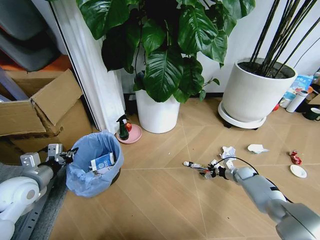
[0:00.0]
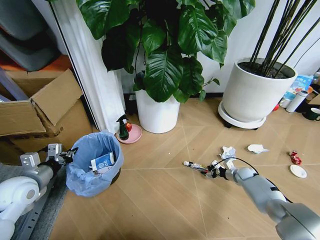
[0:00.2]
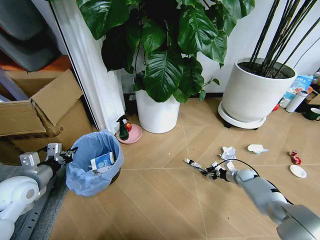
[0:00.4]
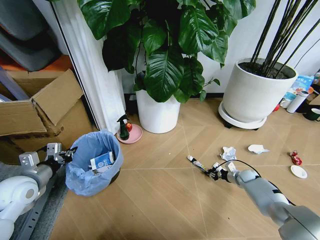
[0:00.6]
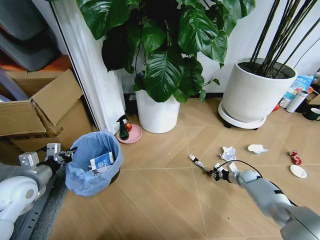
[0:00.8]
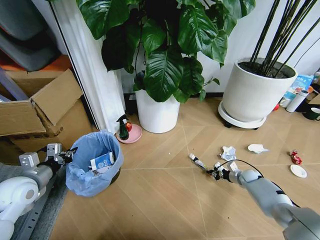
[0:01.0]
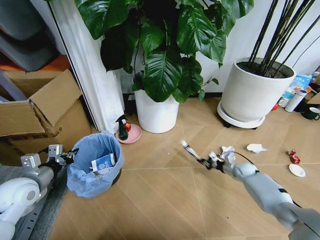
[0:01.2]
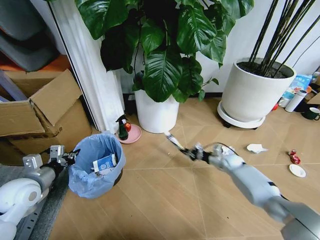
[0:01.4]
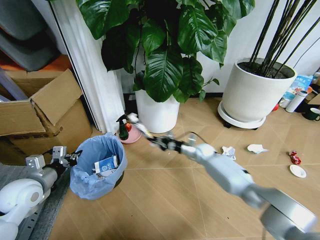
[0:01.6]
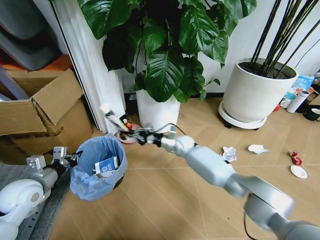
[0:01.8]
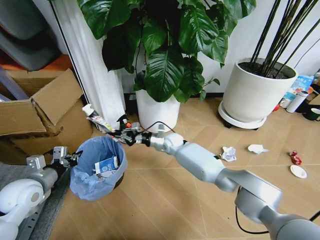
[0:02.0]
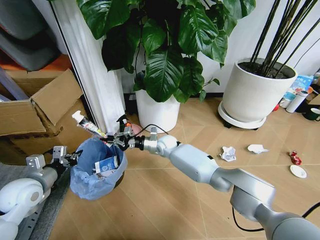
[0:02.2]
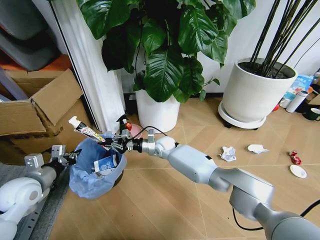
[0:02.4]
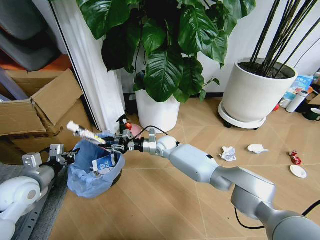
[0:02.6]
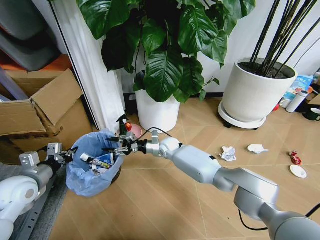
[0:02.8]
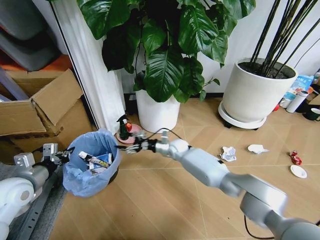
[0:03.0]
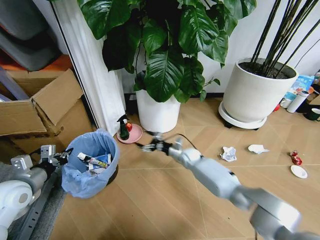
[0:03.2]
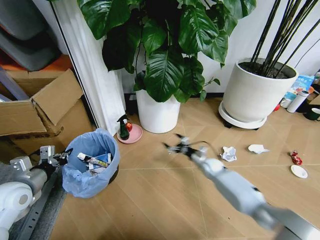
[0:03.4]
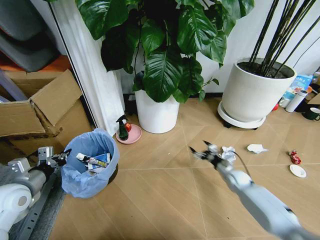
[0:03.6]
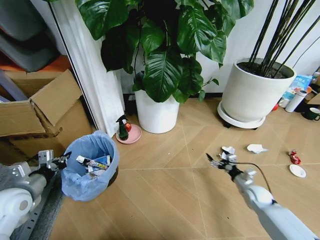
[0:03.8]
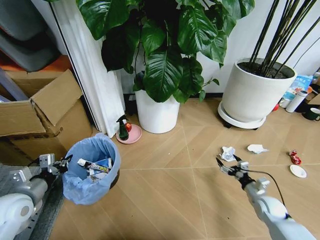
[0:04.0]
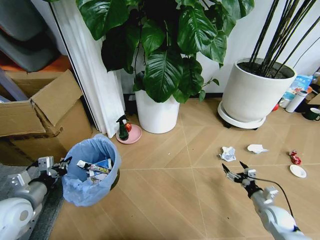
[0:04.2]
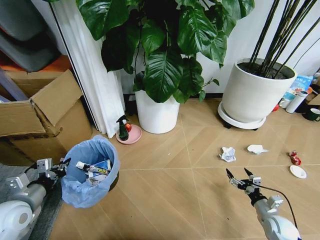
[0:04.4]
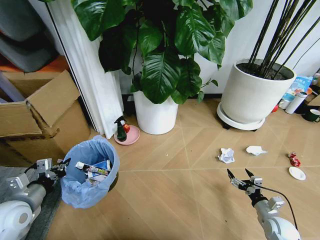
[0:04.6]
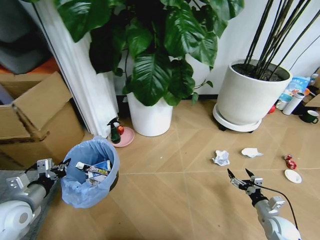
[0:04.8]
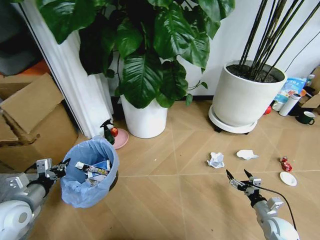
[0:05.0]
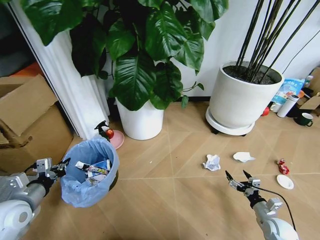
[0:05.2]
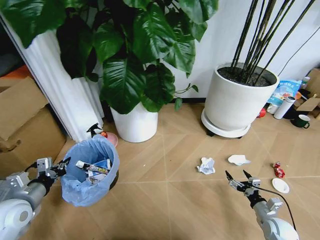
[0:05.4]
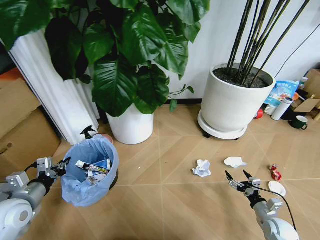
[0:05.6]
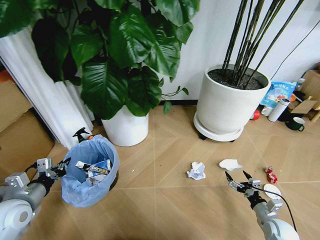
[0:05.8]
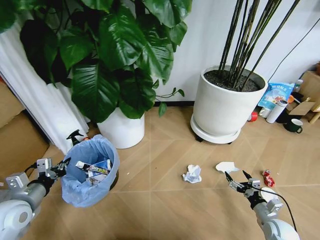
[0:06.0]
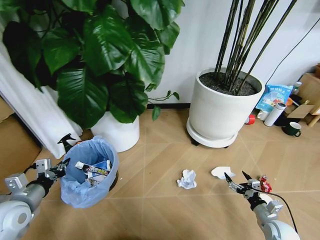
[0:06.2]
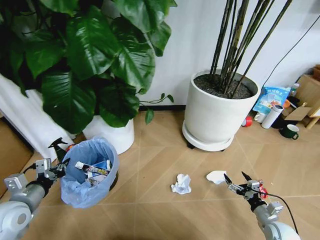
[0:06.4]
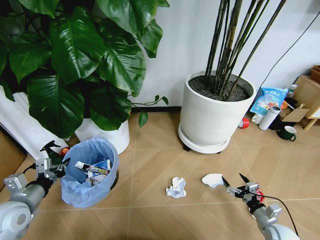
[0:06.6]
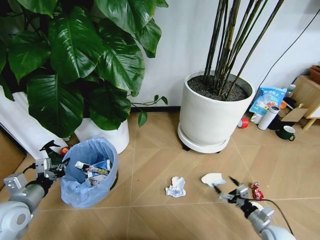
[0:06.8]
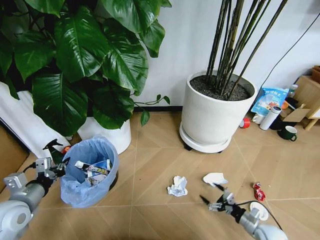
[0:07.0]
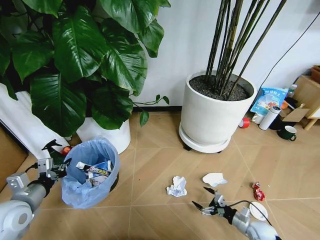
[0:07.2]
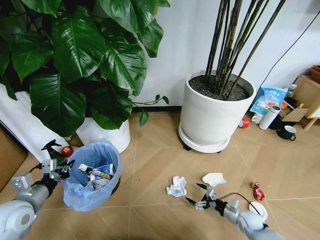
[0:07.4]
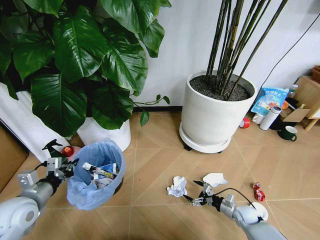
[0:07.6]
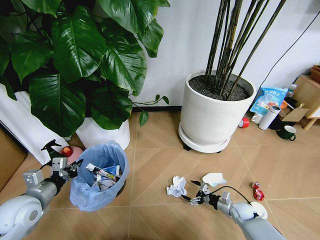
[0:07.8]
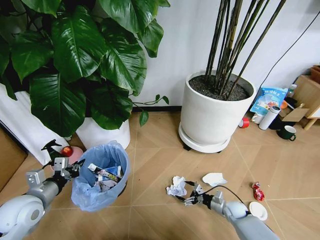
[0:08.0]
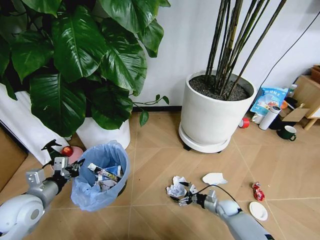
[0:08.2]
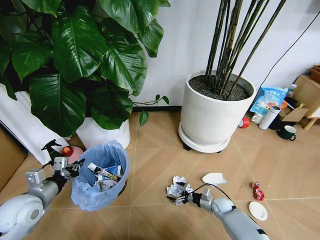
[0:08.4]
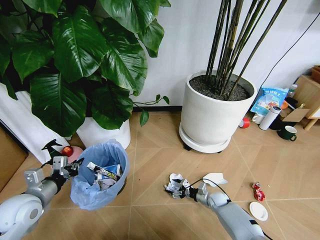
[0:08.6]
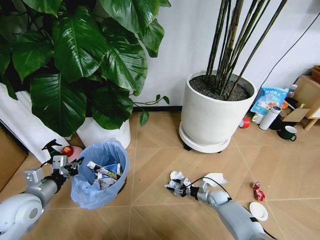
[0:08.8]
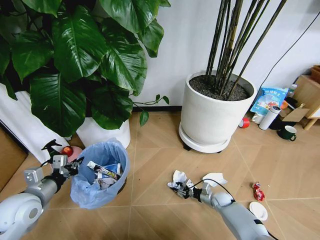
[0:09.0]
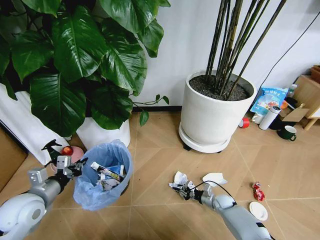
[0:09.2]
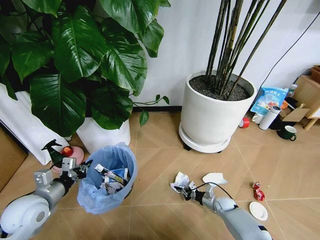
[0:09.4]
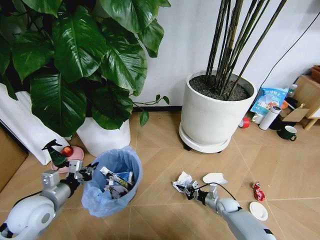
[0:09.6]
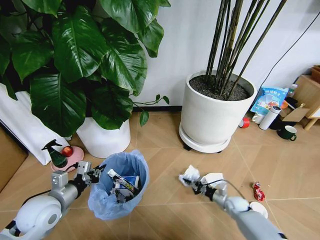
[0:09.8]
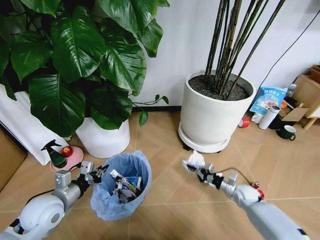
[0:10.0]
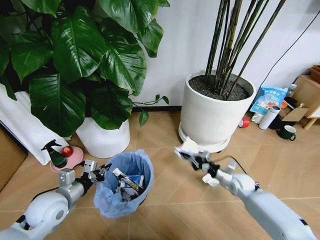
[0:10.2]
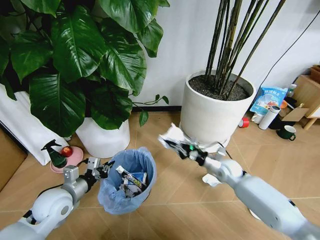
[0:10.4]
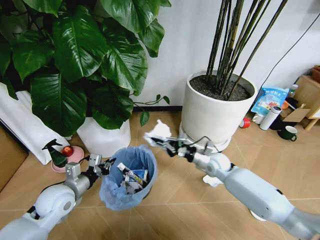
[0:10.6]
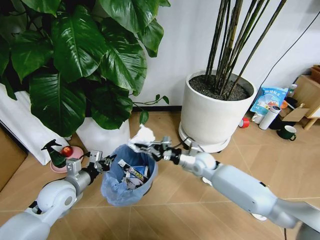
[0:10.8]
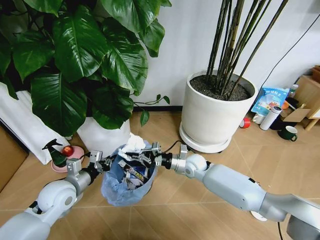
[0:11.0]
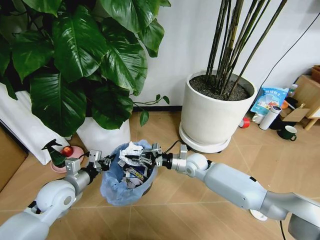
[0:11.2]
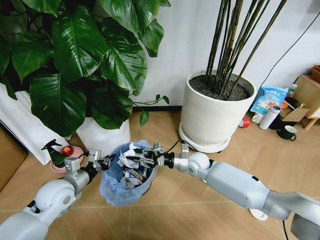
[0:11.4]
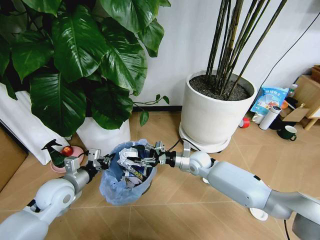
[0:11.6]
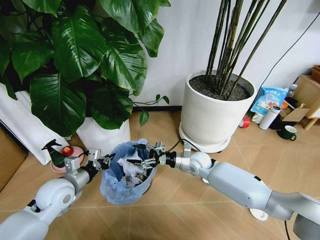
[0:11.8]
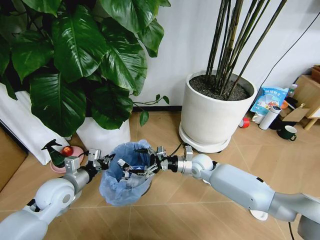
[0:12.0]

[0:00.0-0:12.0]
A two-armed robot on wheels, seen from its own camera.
Task of the whole recording: Pick up the trash bin and place the garbage on the floor into it.
0:00.0 to 0:01.6: The right gripper moves to the left and upward, some 25 cm, and closes its fingers.
0:01.6 to 0:03.0: The right gripper shifts about 15 cm to the left, and opens.
0:03.0 to 0:04.4: The left gripper heads backward, covering about 5 cm, while the right gripper travels to the right and backward by roughly 50 cm.
0:06.0 to 0:07.6: The right gripper shifts approximately 10 cm forward, to the left and downward.
0:07.6 to 0:09.0: The right gripper shifts roughly 10 cm forward and to the left, and closes.
0:09.0 to 0:10.4: The right gripper goes roughly 20 cm upward, and closes its fingers. The left gripper moves to the right, some 5 cm.
0:10.4 to 0:12.0: The right gripper is displaced to the left by about 10 cm, and opens up.

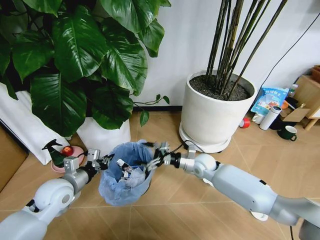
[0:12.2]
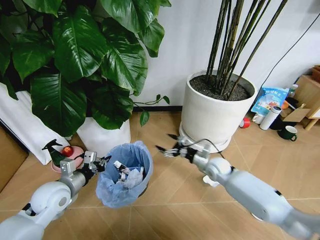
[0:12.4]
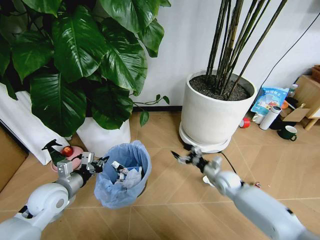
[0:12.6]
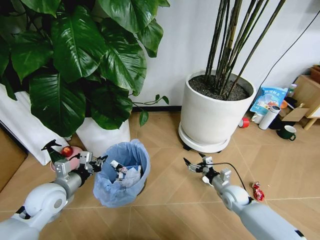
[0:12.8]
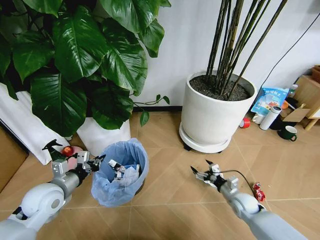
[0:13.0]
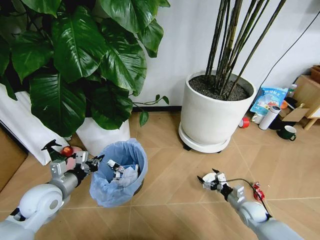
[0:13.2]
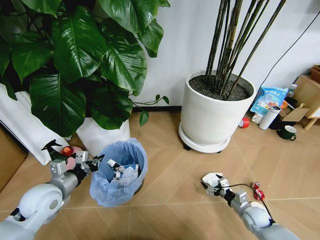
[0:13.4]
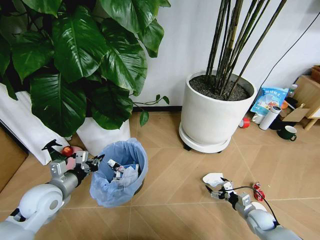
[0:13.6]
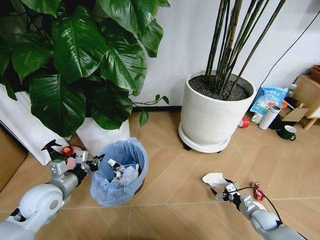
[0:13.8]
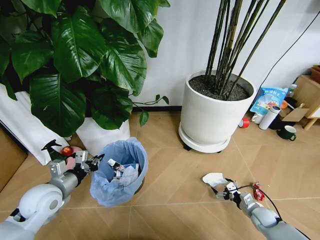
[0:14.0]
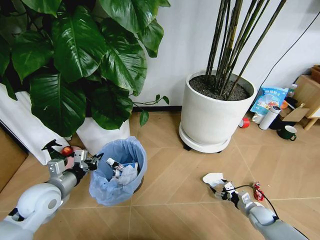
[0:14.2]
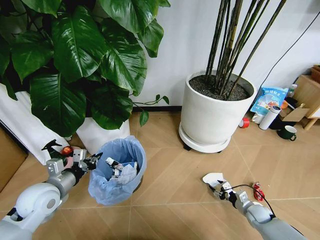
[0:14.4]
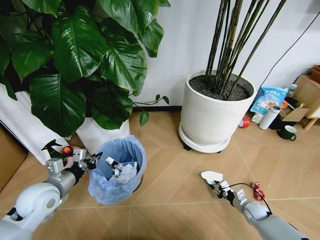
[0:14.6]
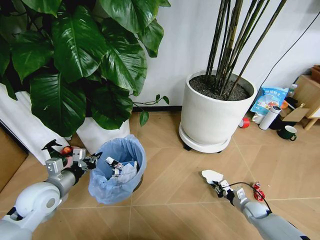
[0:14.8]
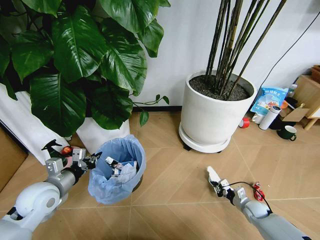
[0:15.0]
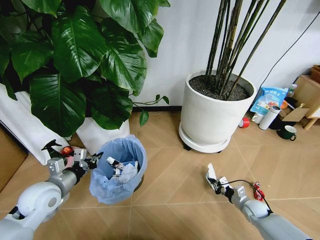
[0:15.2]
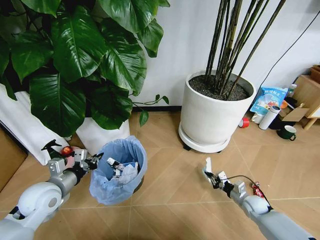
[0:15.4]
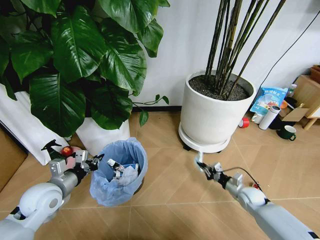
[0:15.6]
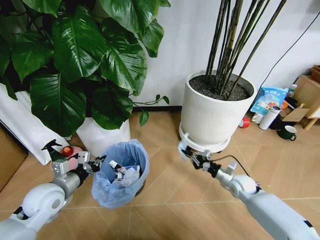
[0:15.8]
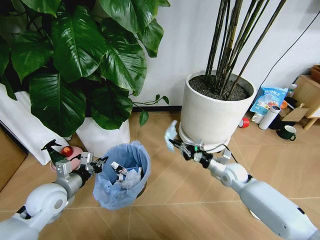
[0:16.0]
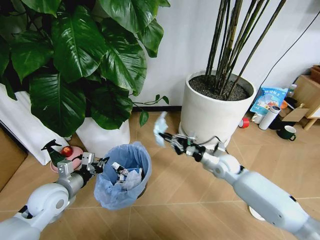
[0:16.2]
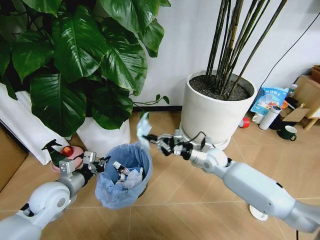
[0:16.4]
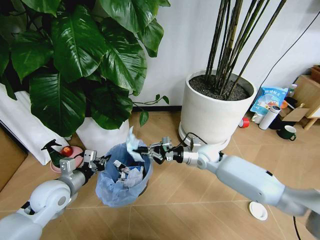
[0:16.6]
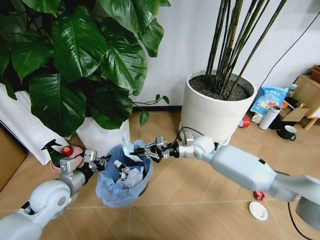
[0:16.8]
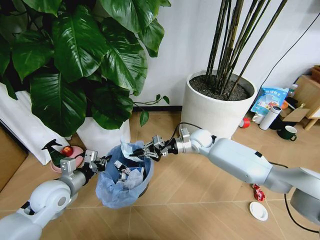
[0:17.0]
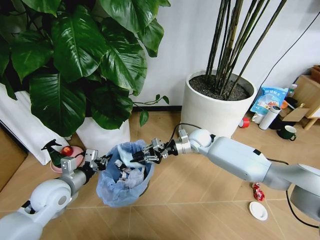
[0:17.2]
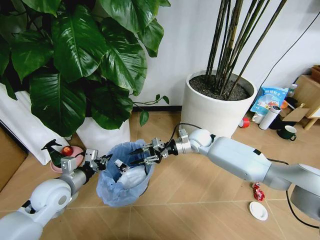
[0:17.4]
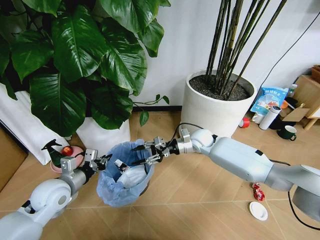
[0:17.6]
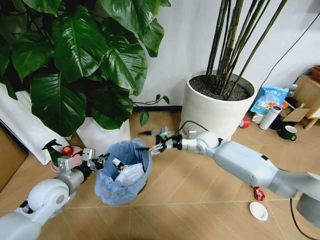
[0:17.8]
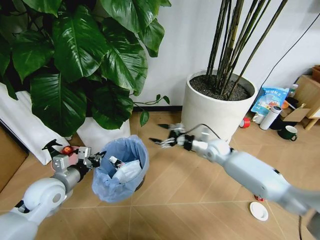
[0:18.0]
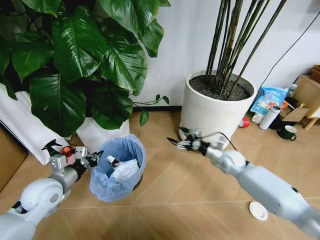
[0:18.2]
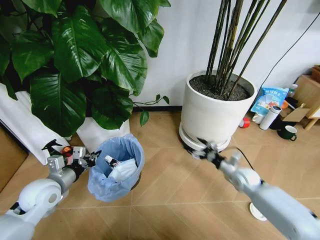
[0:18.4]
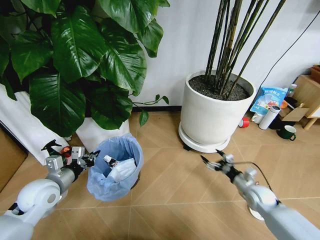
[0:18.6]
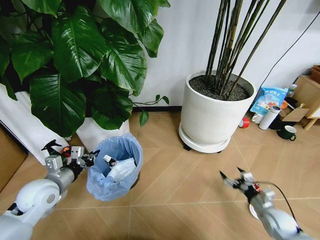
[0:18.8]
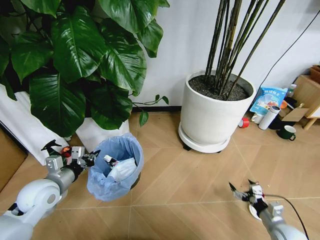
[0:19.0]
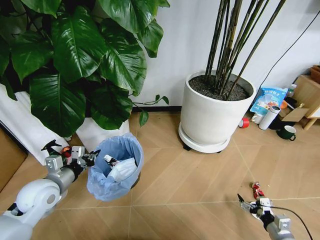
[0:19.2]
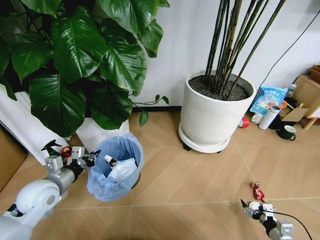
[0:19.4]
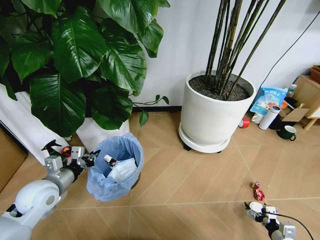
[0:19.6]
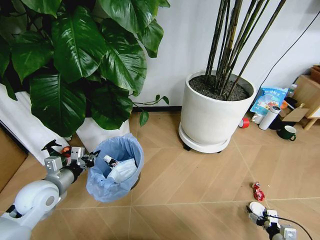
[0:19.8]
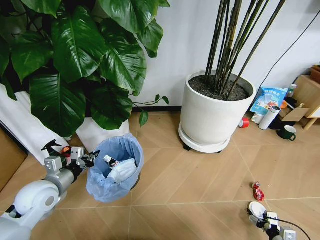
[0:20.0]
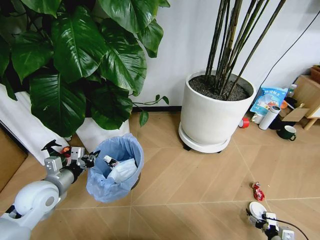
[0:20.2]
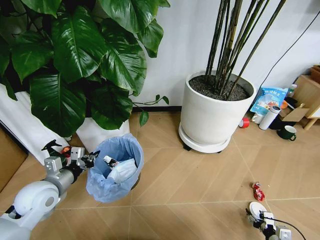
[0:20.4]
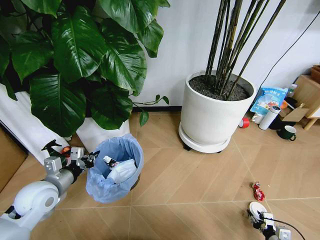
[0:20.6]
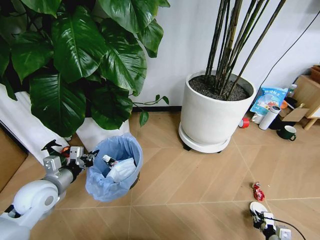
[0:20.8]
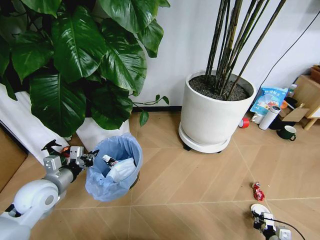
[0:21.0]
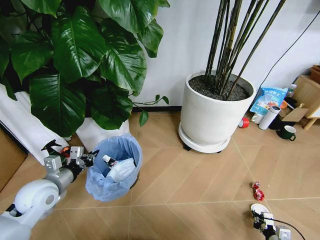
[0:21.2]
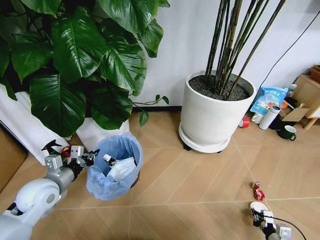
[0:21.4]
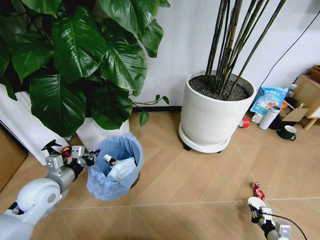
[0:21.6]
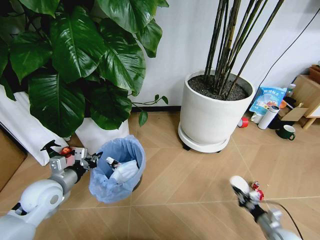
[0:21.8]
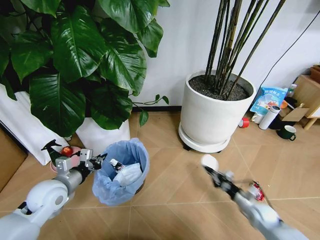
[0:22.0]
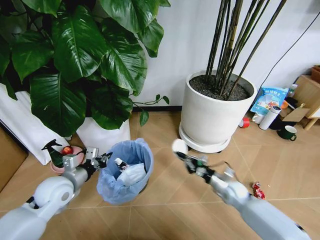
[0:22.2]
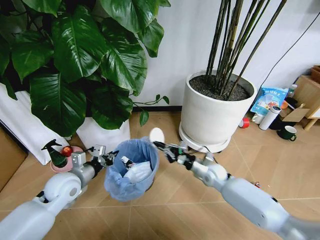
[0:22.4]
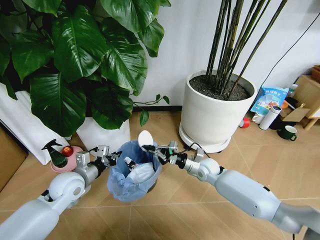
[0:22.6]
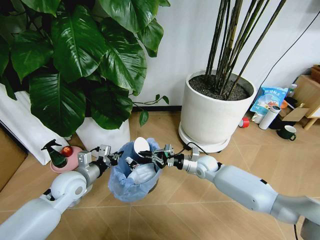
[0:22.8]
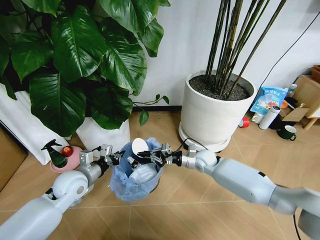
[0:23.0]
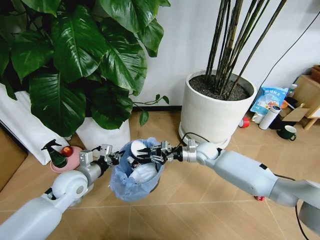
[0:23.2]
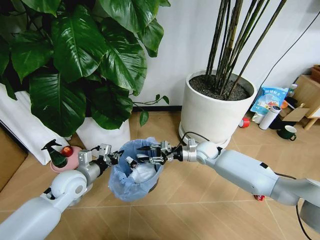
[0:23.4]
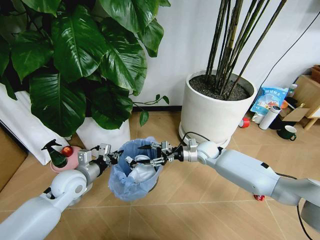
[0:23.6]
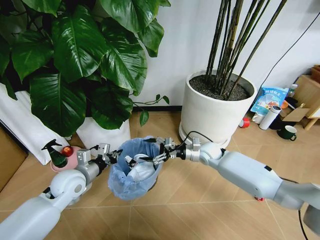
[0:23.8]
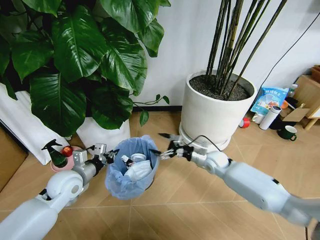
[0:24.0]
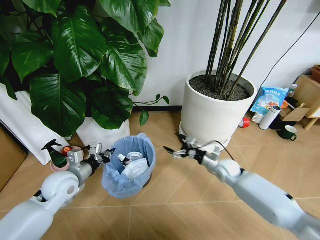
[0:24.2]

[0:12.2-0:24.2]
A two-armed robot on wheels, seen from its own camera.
Task of the whole recording: Pick up the trash bin and place the garbage on the floor into it.
0:12.2 to 0:13.8: The right gripper moves to the right, backward and downward, roughly 35 cm.
0:13.8 to 0:15.2: The right gripper closes its fingers.
0:15.2 to 0:16.6: The right gripper is displaced to the left, upward and forward by about 35 cm.
0:16.6 to 0:18.2: The right gripper goes approximately 10 cm to the right, and opens up.
0:18.2 to 0:19.8: The right gripper heads backward, to the right and downward, covering about 40 cm.
0:19.8 to 0:21.2: The right gripper closes.
0:21.2 to 0:22.6: The right gripper heads forward, to the left and upward, covering roughly 40 cm, while the left gripper is displaced to the right by roughly 5 cm.
0:22.6 to 0:24.2: The right gripper goes approximately 5 cm to the right, and opens up.
